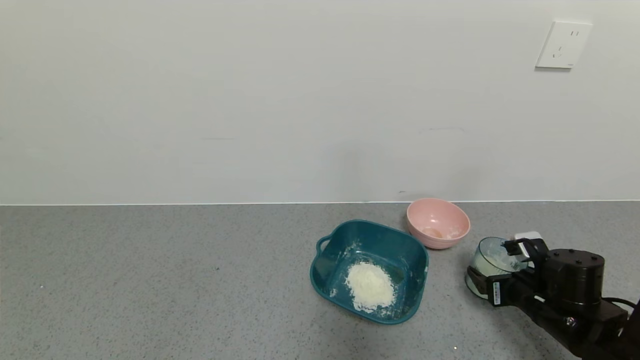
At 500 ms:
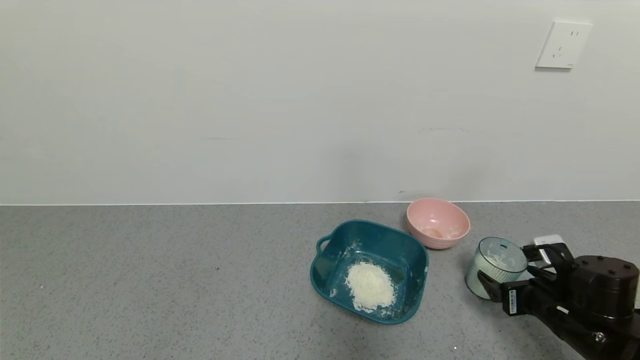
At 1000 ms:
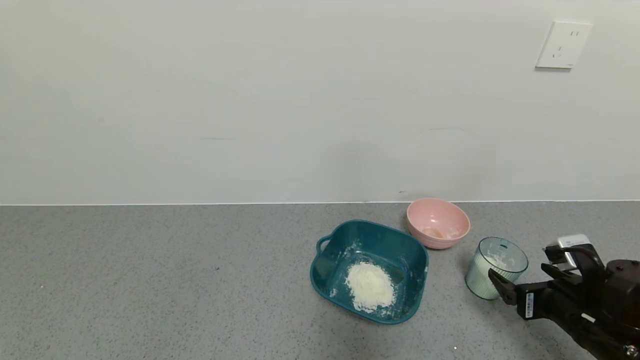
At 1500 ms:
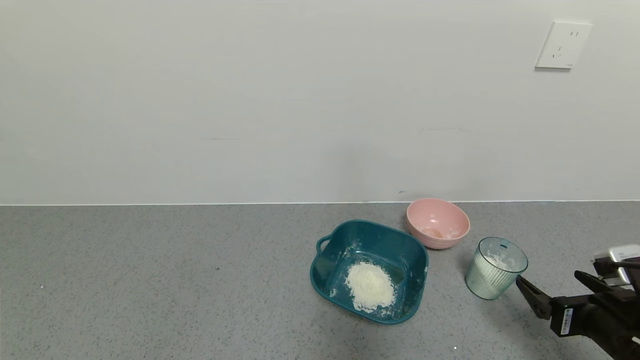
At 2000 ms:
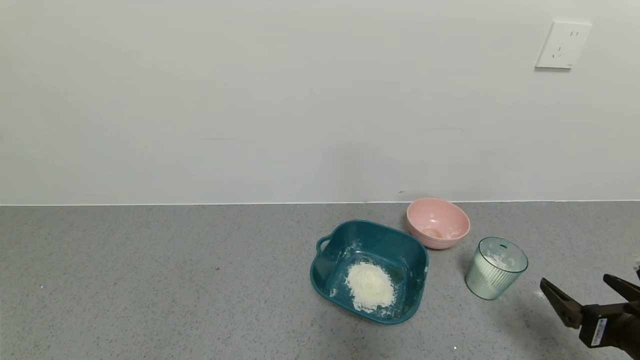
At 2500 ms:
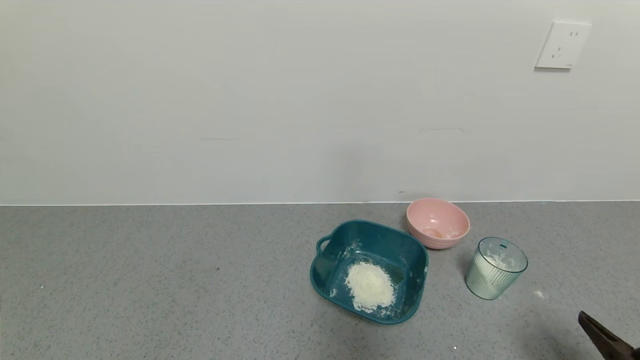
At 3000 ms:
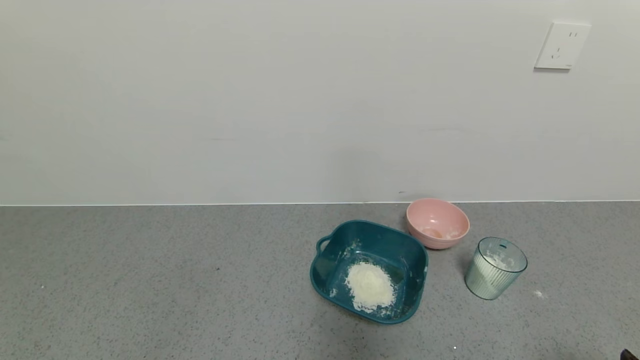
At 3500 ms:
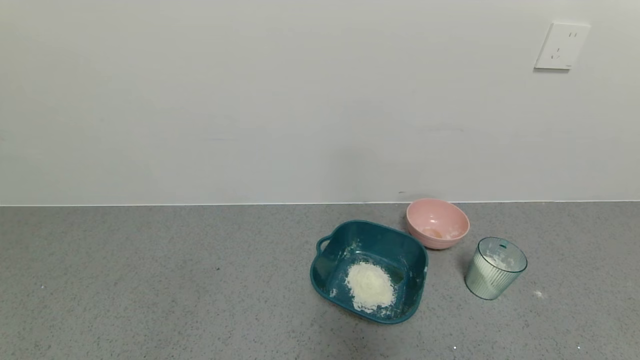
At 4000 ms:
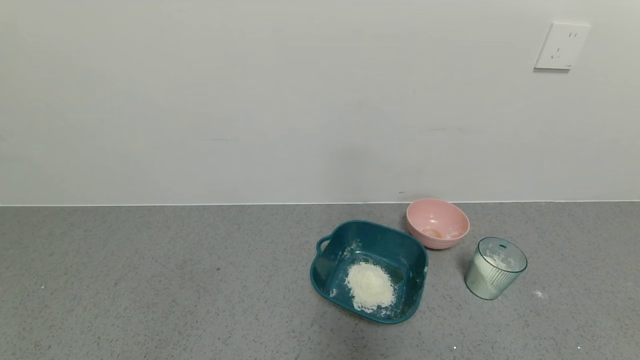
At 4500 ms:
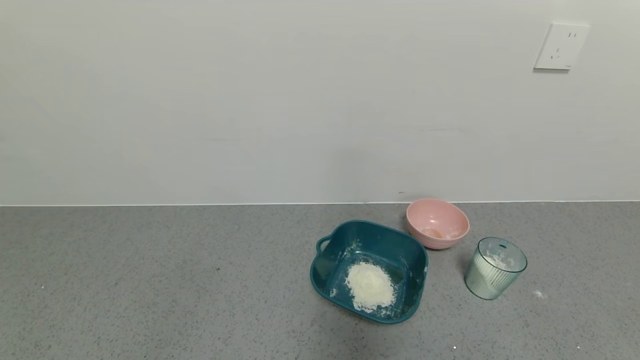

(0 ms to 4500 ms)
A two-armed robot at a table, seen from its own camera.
Task of the whole recording: use a gripper to pick up the cup and pour the powder into a bowl or tray.
0 ms - 2000 ms: The right gripper travels backward and upward by about 15 cm.
2000 ms - 4500 ms: The right gripper goes some 15 cm backward.
